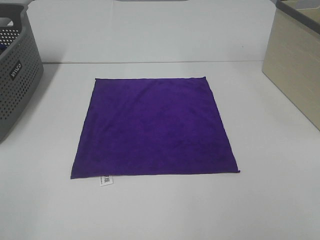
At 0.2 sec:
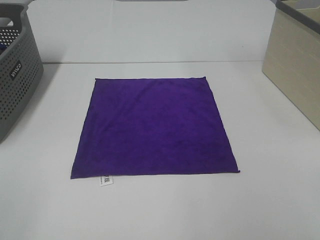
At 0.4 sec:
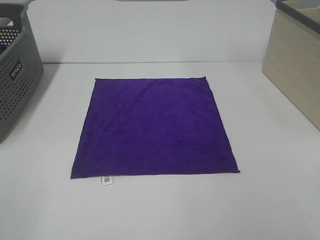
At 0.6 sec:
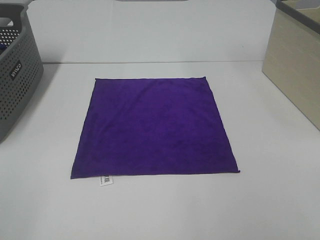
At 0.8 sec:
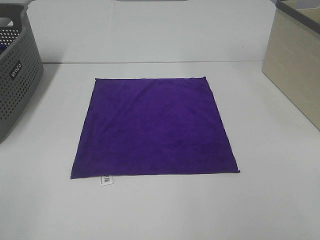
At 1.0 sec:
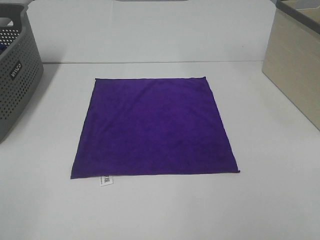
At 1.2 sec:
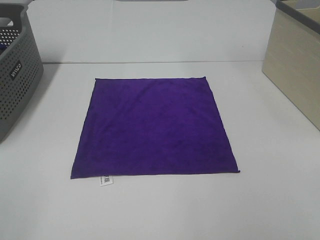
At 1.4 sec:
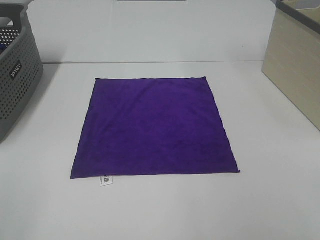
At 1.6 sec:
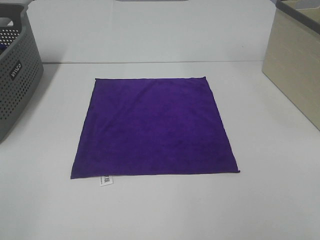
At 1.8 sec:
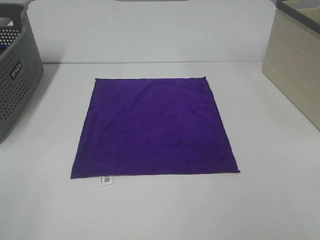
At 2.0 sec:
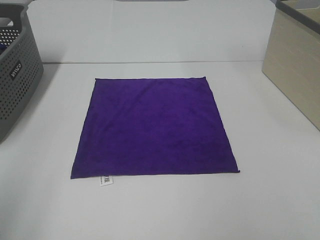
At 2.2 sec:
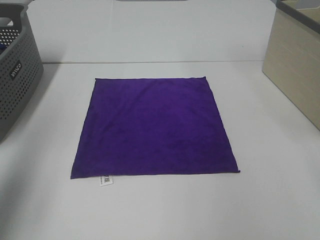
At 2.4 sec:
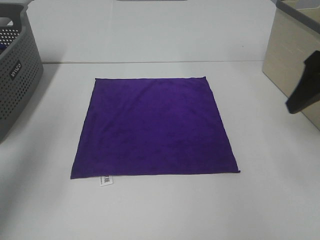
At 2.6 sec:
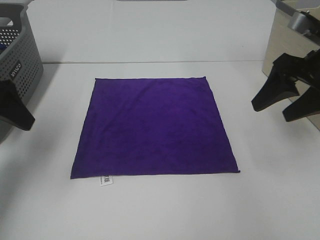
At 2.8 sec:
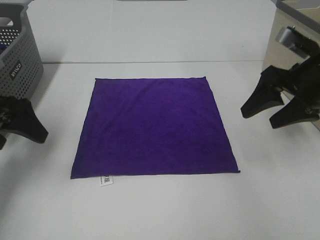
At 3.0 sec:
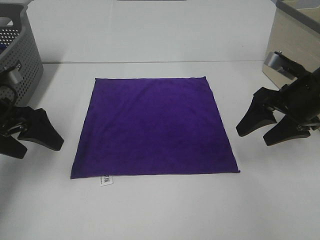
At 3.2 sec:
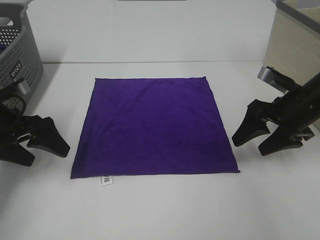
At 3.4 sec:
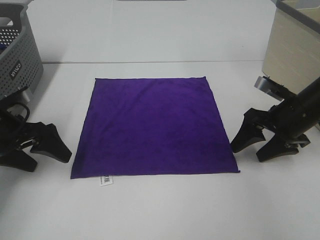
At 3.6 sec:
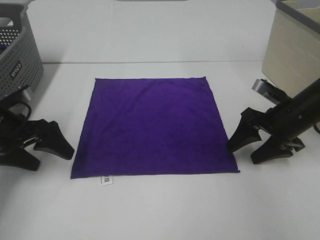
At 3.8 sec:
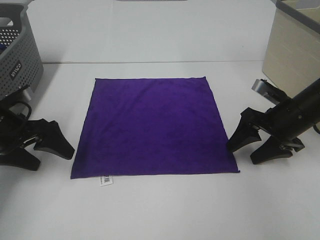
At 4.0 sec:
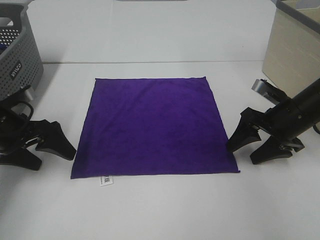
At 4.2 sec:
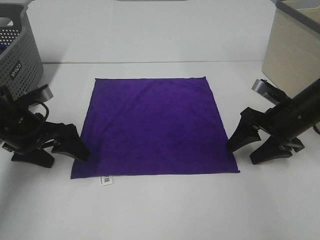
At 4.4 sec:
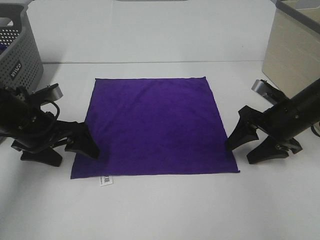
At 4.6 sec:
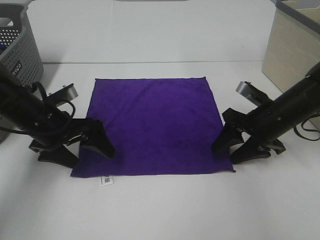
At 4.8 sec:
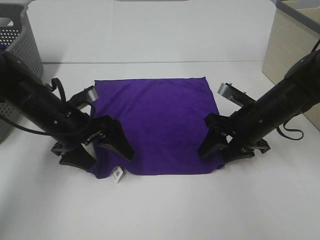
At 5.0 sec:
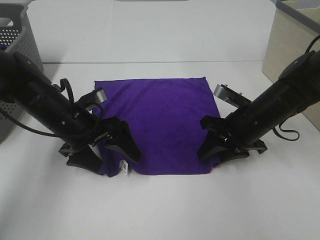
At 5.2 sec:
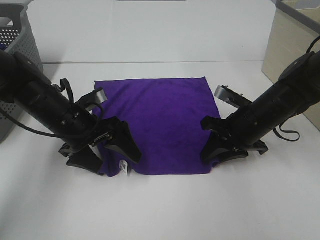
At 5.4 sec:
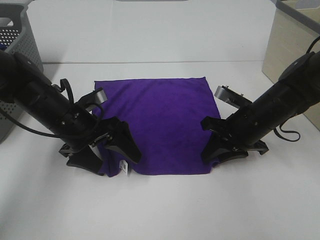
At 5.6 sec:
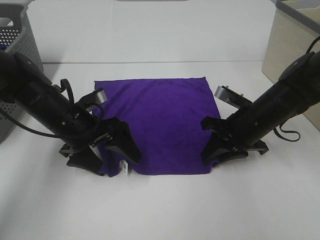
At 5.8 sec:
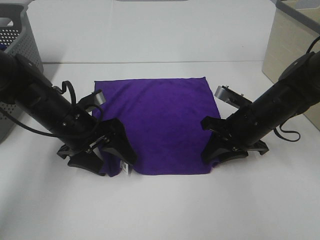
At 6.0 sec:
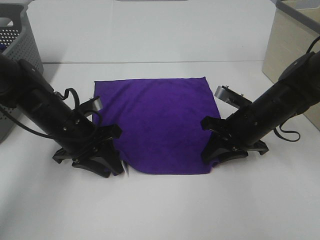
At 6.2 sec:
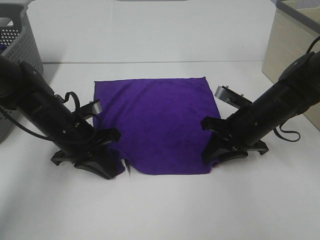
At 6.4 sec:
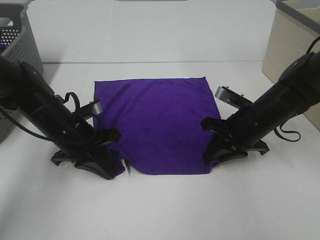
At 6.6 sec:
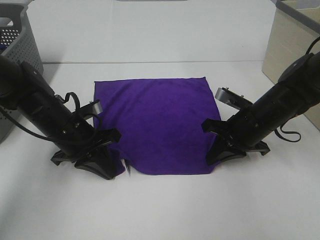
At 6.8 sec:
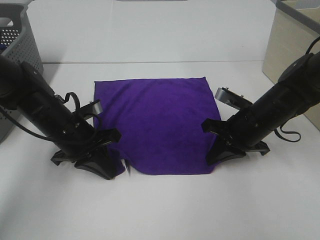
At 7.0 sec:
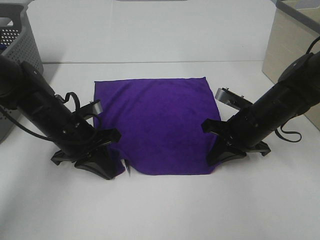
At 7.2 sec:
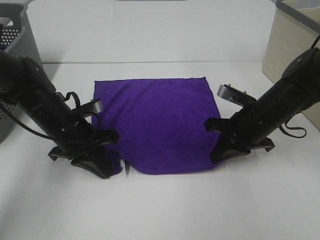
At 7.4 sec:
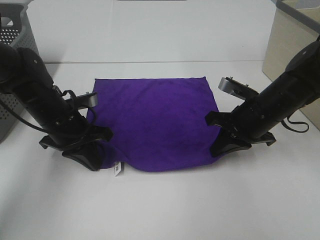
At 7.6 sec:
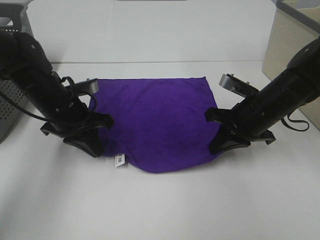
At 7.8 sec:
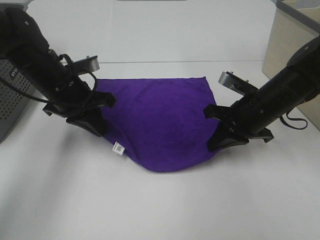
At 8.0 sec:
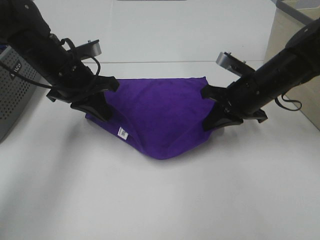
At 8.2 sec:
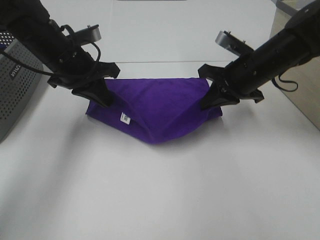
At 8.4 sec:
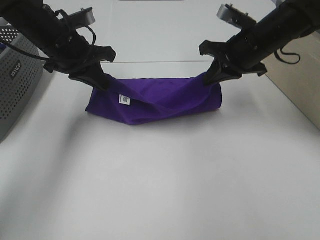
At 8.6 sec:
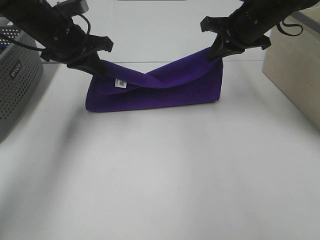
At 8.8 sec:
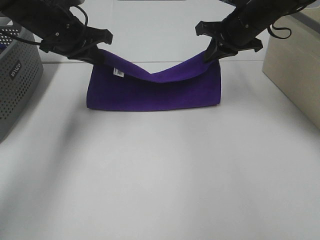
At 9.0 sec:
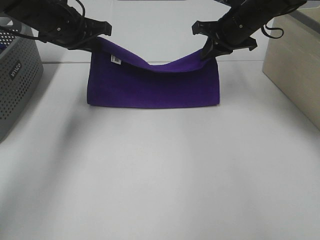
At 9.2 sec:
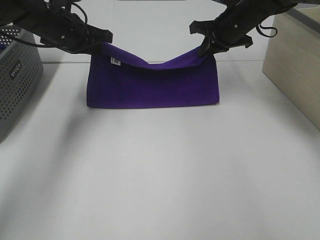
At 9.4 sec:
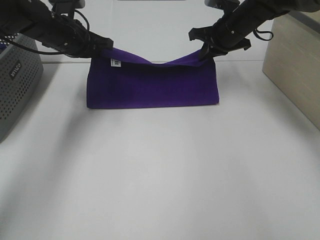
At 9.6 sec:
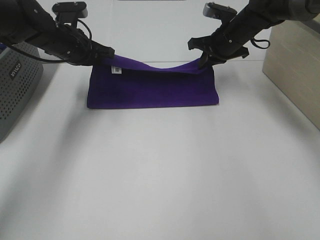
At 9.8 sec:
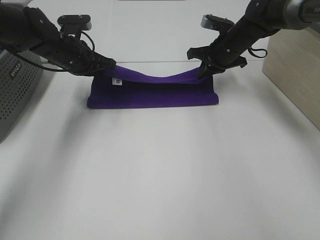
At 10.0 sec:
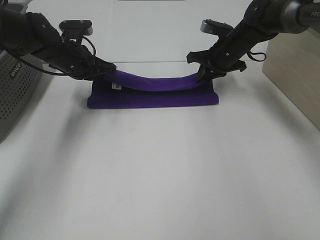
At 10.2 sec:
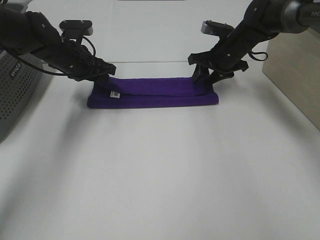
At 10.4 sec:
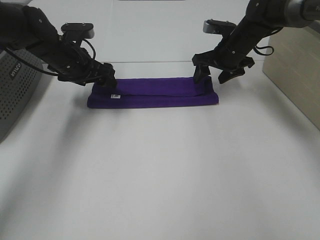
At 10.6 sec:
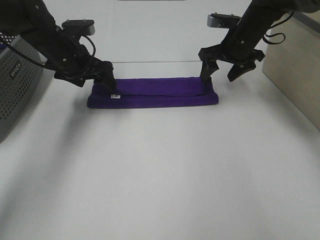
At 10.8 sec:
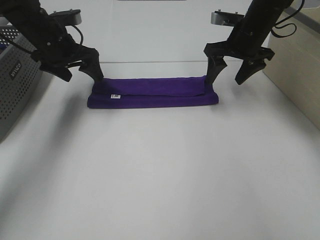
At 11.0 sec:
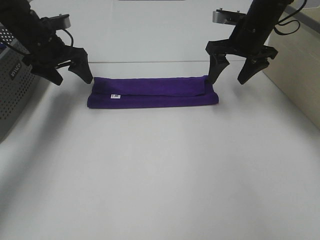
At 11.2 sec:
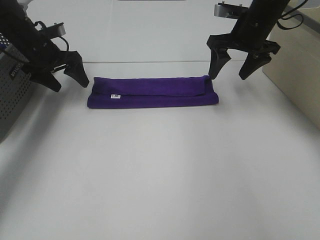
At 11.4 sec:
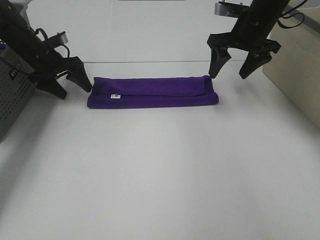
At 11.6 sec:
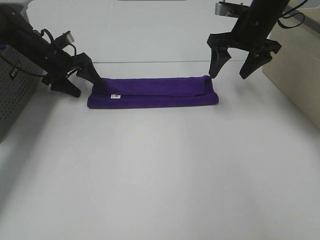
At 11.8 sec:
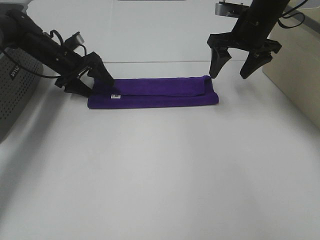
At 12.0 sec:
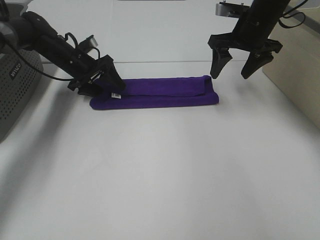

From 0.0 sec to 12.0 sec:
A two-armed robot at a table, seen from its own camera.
Task of the whole recording: Fold towels.
Step, from 0.0 sec to 7.0 sec: Left hand: grab the bottom left corner of purple towel.
Step, from 0.0 sec to 7.0 sec: Right hand: grab the bottom right corner of purple towel.
Step, from 7.2 sec to 10.2 sec: Left hand: fold the purple towel up.
Step, from 7.2 sec to 10.2 sec: Right hand: fold the purple towel up.
From 0.0 sec to 1.6 sec: Both grippers stay put.
From 1.6 sec to 3.0 sec: The grippers both shift forward and downward by some 35 cm.
From 3.0 sec to 4.4 sec: The right gripper goes some 5 cm downward; the left gripper goes approximately 5 cm to the right.
From 4.4 sec to 6.0 sec: The left gripper moves to the right, about 5 cm, and closes up. Meanwhile the right gripper shifts approximately 5 cm to the left, and closes.
From 6.0 sec to 7.6 sec: The left gripper ends up approximately 5 cm from where it was.
From 7.6 sec to 9.0 sec: The right gripper shifts about 20 cm forward and upward, while the left gripper moves upward and forward, roughly 15 cm.
From 9.0 sec to 10.4 sec: The two grippers go approximately 5 cm downward. The left gripper opens its fingers, while the right gripper opens.
From 10.4 sec to 12.0 sec: The right gripper travels upward by approximately 5 cm. Meanwhile the left gripper travels forward and downward by approximately 10 cm.

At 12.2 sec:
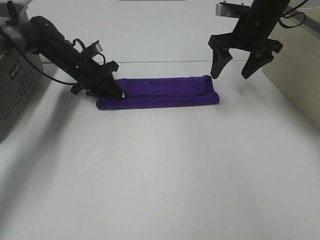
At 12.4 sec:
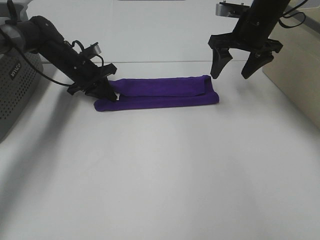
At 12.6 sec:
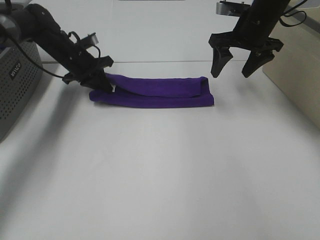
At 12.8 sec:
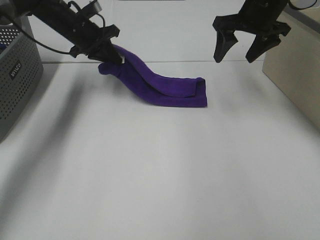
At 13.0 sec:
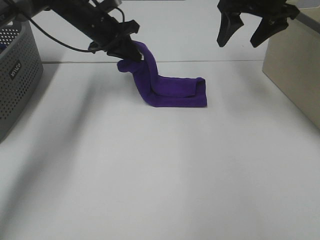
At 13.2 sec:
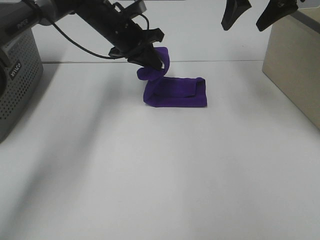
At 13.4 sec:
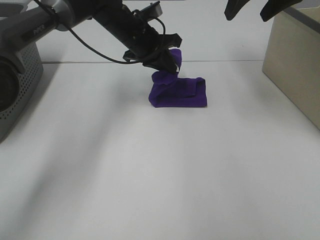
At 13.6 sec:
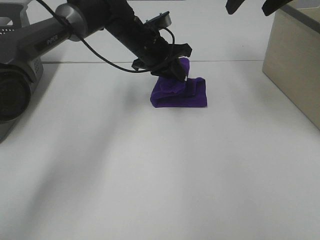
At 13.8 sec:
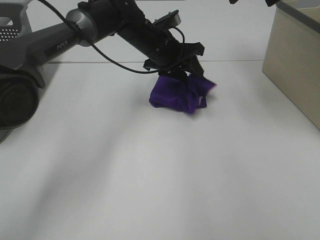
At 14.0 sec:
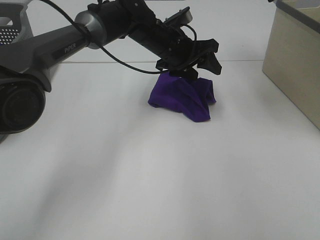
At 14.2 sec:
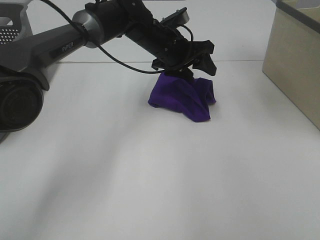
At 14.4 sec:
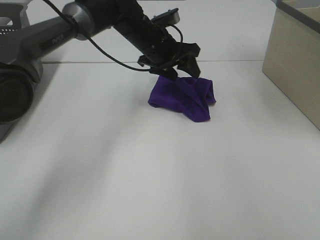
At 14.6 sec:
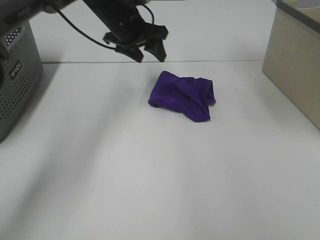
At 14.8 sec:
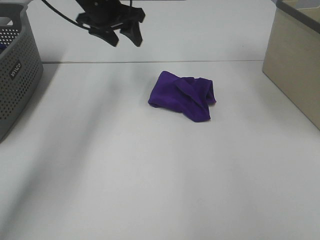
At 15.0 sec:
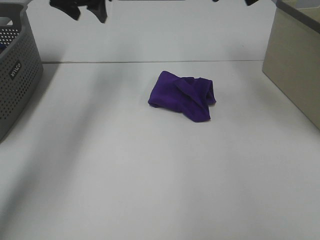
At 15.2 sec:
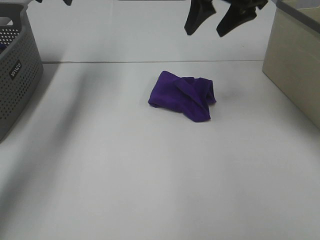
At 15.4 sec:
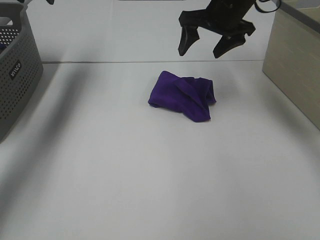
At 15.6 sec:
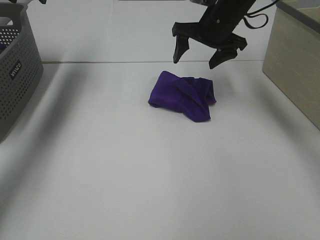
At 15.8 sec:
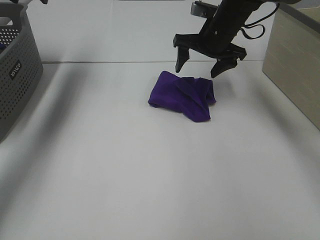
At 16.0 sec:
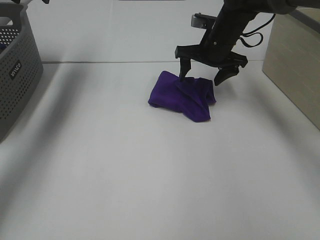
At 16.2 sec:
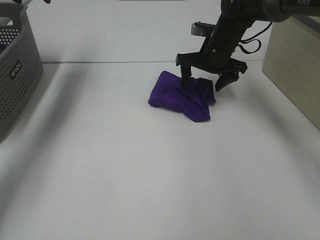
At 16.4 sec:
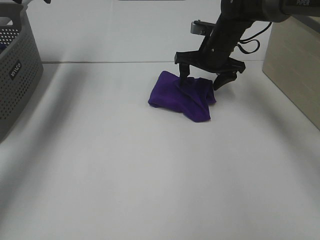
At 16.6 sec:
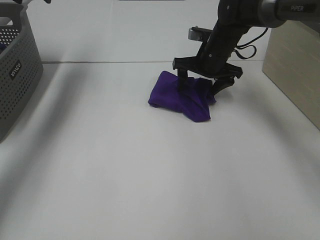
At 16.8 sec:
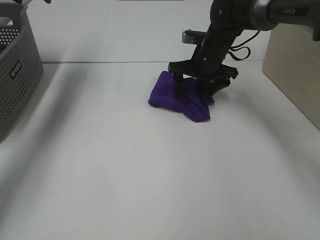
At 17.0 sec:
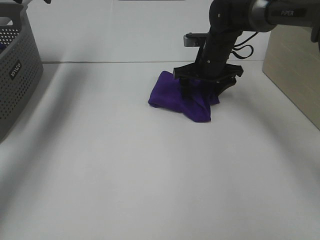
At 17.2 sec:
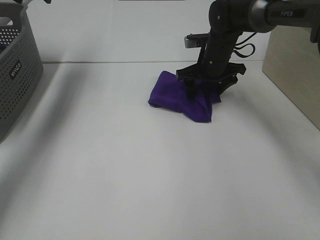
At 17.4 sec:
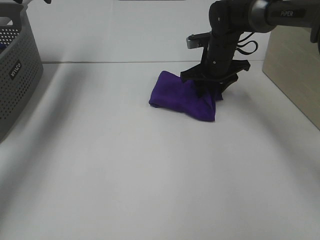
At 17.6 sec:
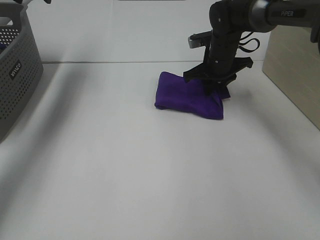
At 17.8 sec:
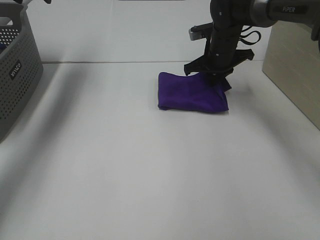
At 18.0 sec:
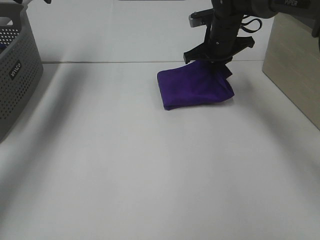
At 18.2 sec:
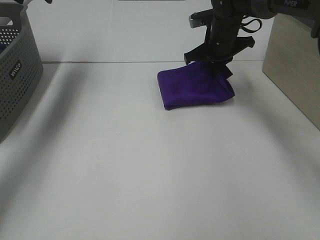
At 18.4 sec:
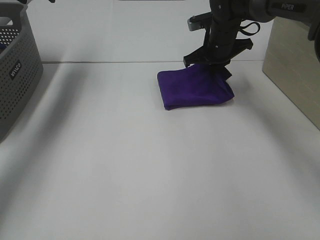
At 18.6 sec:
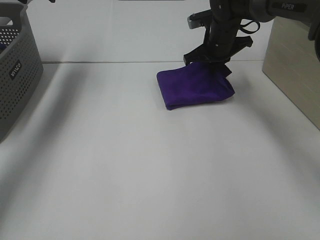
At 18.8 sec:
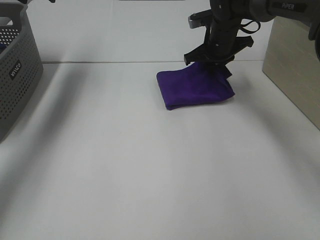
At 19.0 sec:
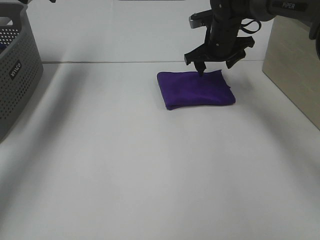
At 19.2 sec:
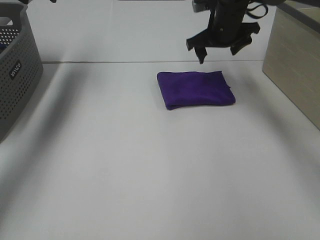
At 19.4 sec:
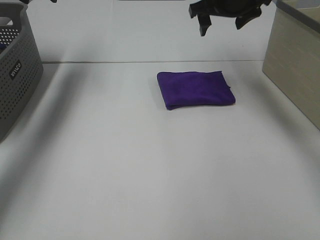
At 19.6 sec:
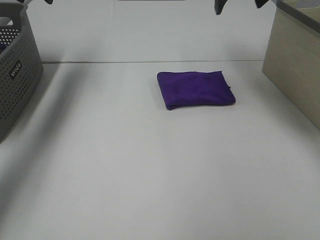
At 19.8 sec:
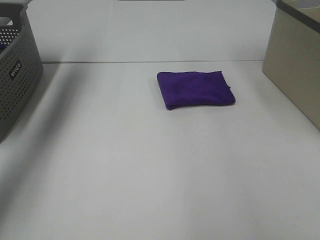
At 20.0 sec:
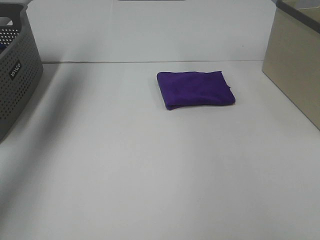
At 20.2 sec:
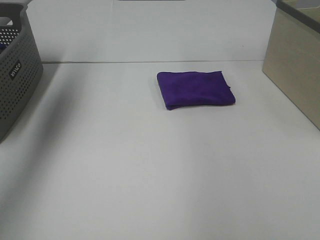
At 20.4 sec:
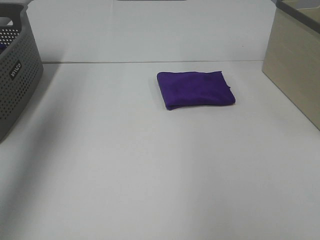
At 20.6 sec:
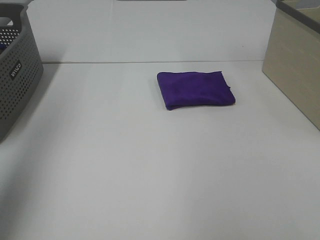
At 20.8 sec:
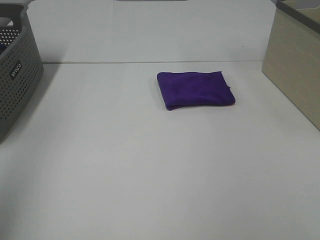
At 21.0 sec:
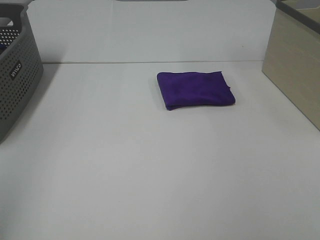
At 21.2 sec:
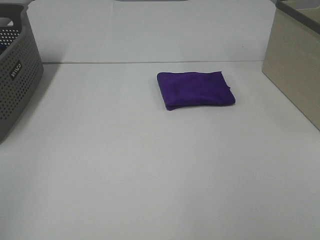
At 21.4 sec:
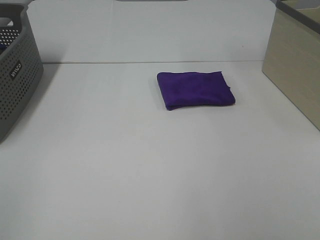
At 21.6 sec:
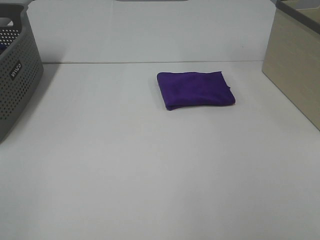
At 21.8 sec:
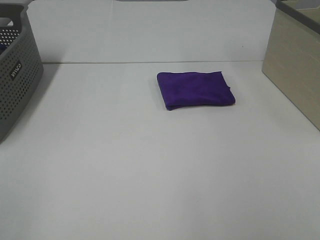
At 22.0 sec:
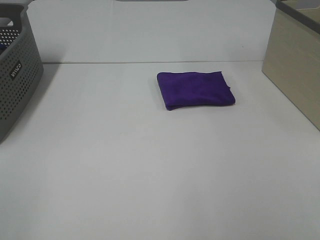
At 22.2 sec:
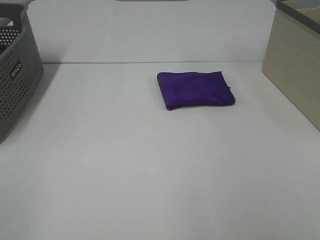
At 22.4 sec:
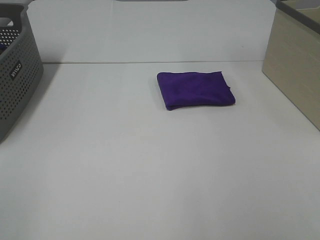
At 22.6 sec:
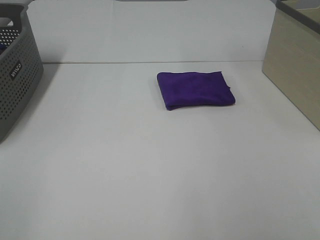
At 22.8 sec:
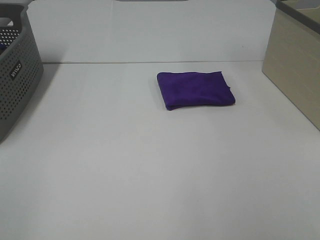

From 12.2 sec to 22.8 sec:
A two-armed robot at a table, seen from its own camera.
Task of the whole recording: Fold towels.
Step, from 14.0 sec to 19.2 sec: Right hand: adjust the purple towel.
From 12.2 sec to 13.8 sec: The right gripper travels upward by approximately 15 cm. The left gripper heads to the right and upward, covering roughly 20 cm.
From 13.8 sec to 15.2 sec: The right gripper goes some 10 cm downward and to the left; the left gripper travels to the left and upward by some 30 cm.
From 15.2 sec to 16.8 sec: The right gripper travels downward by some 15 cm.
From 16.8 sec to 18.2 sec: The right gripper closes its fingers.
From 18.2 sec to 19.8 sec: The right gripper travels upward and to the right by about 25 cm, and opens.
From 19.8 sec to 21.2 sec: The left gripper goes approximately 50 cm backward.
